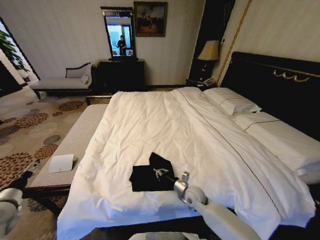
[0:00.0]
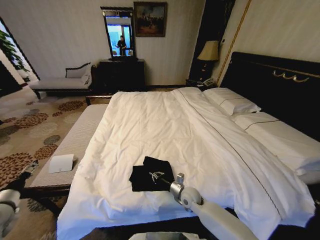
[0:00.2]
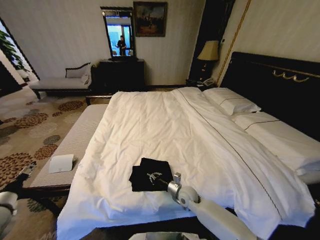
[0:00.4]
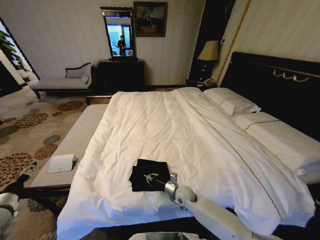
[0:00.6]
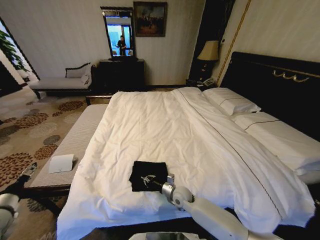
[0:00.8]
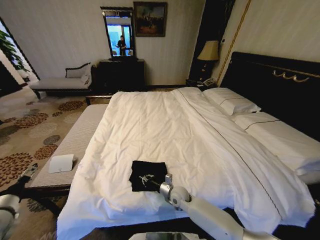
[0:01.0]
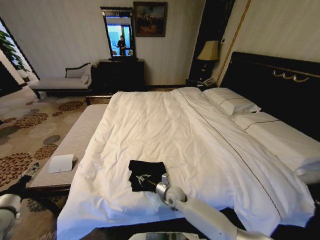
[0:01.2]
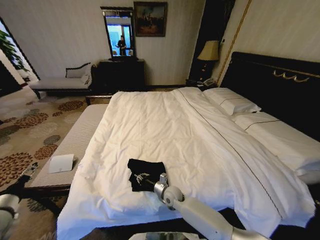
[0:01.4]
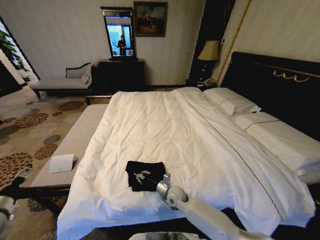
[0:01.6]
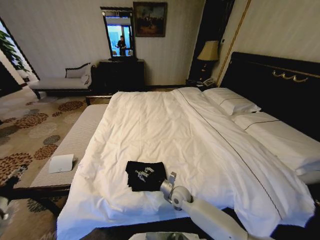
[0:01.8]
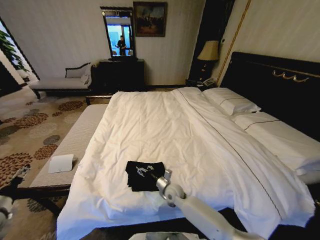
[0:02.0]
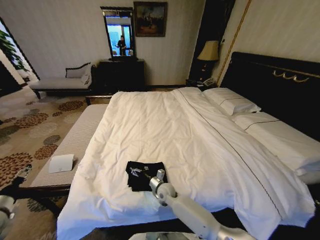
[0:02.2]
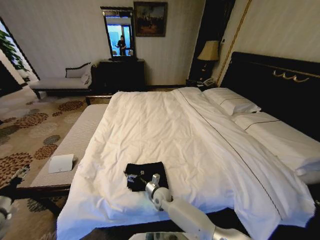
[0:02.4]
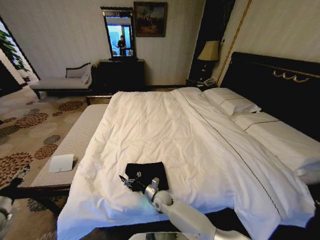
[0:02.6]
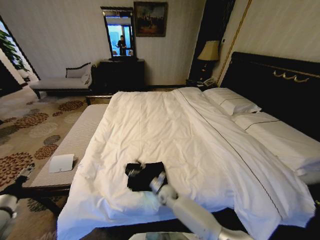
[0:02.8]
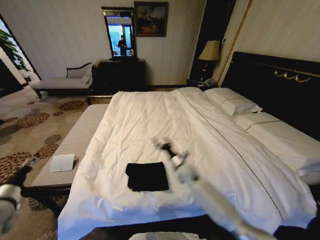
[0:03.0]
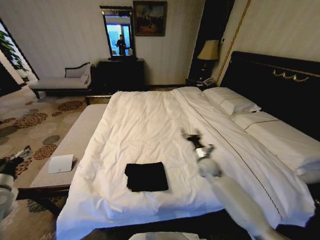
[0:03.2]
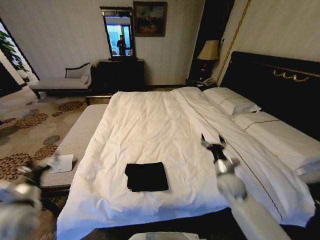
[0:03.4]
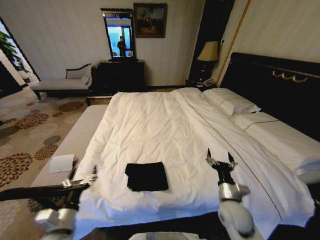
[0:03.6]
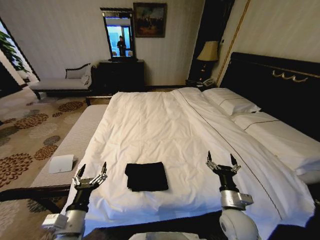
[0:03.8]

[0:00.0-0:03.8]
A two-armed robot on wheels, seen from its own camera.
Task of the whole recording: Fold the clothes on the bed.
0:00.0 to 0:01.2: The right gripper is displaced to the left by about 10 cm.
0:01.2 to 0:02.6: The right gripper goes roughly 5 cm to the left, and opens up.
0:02.6 to 0:03.8: The right gripper travels to the right, upward and backward by about 30 cm, while the left gripper is displaced to the right by some 25 cm.
